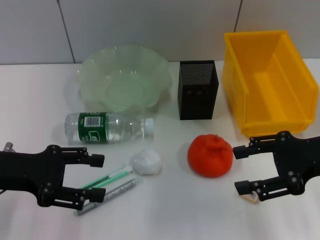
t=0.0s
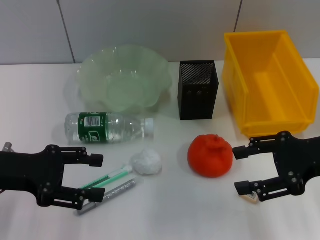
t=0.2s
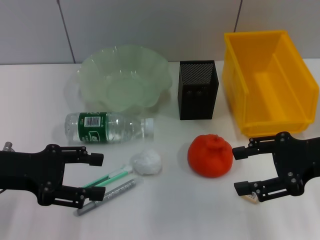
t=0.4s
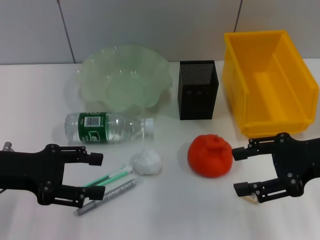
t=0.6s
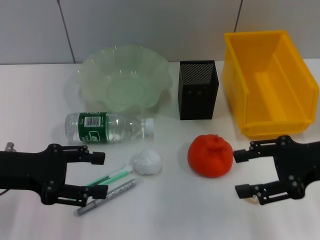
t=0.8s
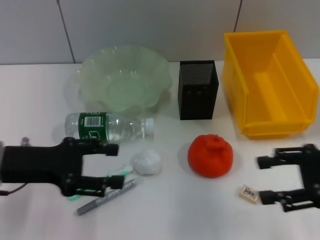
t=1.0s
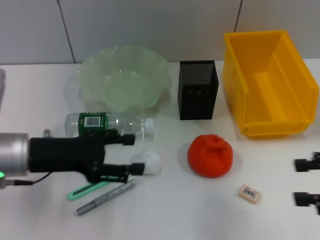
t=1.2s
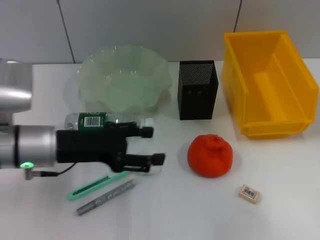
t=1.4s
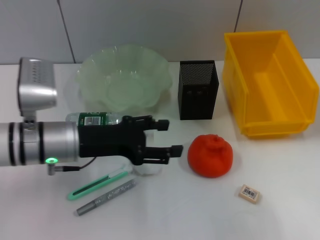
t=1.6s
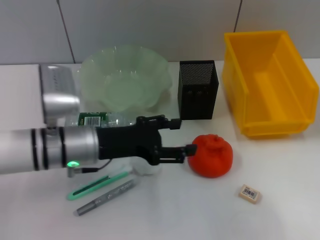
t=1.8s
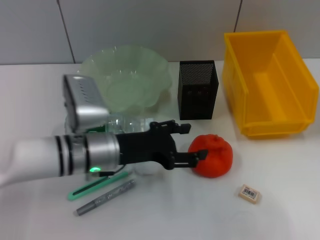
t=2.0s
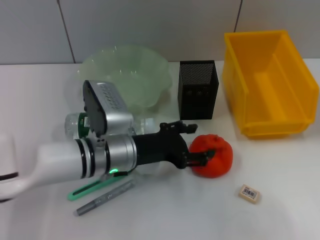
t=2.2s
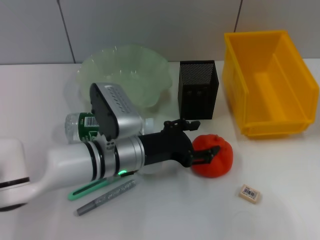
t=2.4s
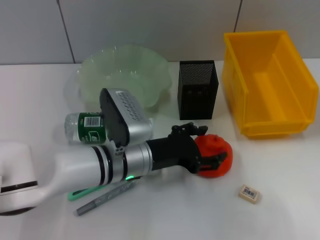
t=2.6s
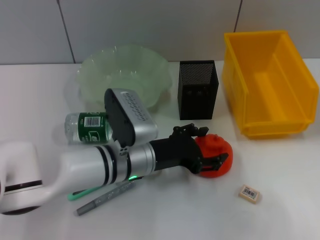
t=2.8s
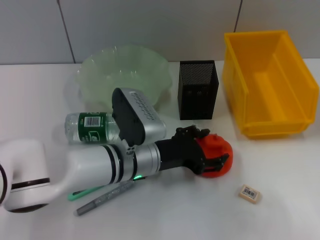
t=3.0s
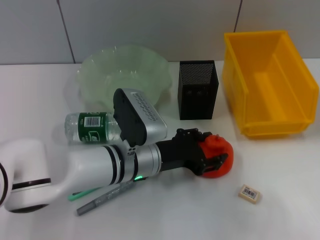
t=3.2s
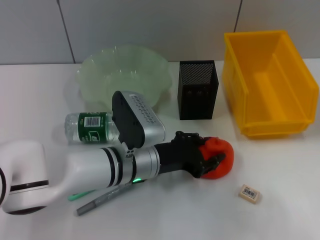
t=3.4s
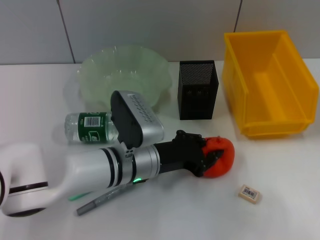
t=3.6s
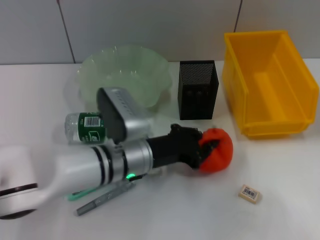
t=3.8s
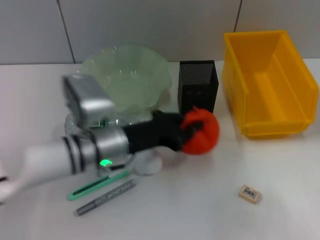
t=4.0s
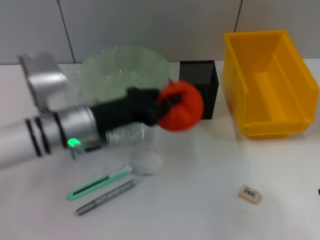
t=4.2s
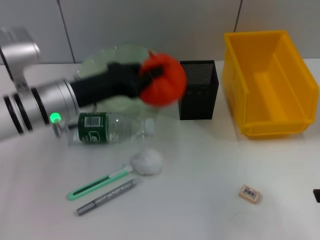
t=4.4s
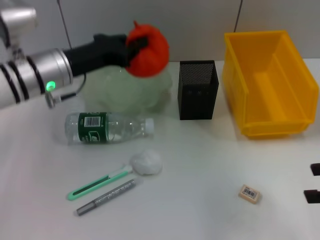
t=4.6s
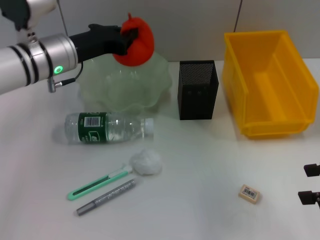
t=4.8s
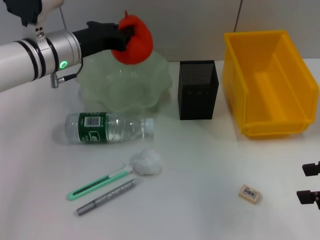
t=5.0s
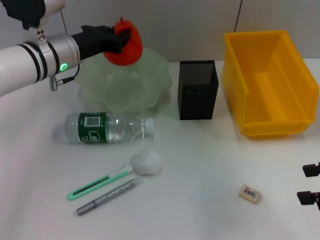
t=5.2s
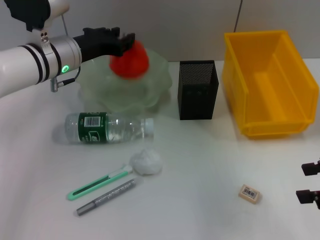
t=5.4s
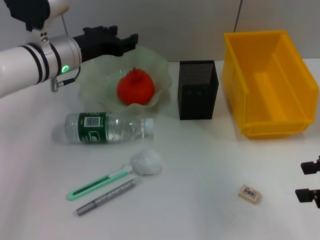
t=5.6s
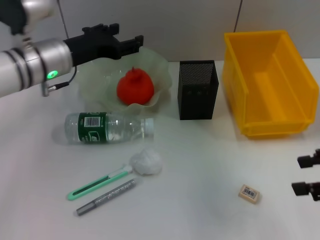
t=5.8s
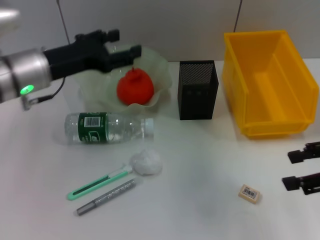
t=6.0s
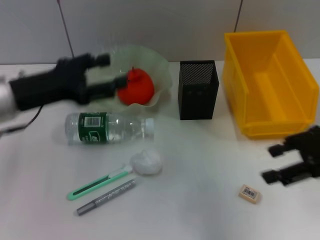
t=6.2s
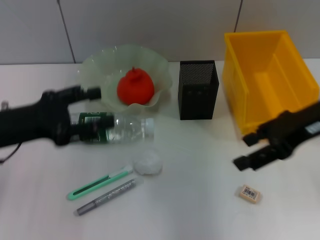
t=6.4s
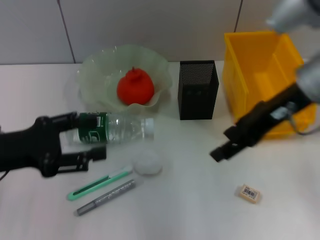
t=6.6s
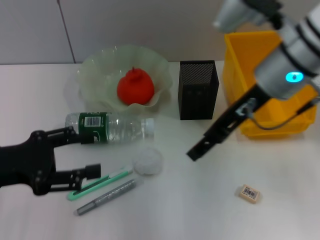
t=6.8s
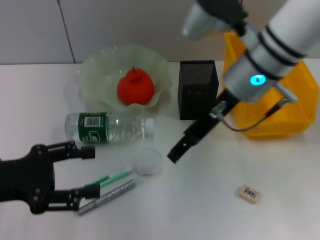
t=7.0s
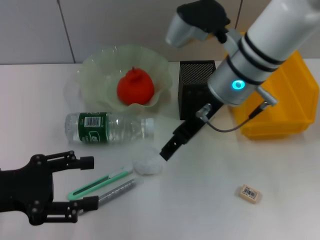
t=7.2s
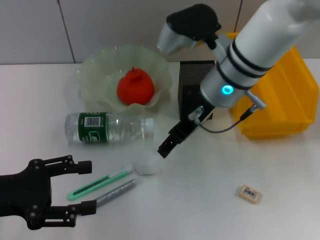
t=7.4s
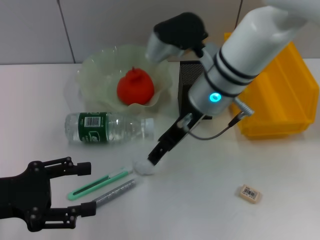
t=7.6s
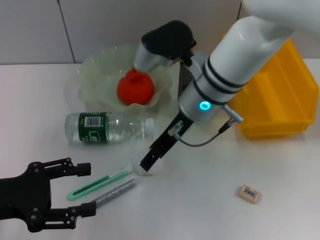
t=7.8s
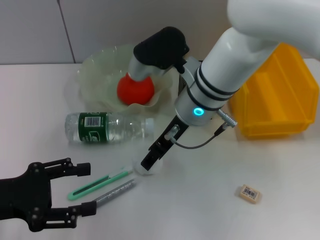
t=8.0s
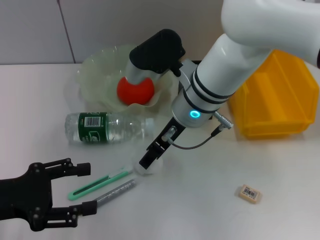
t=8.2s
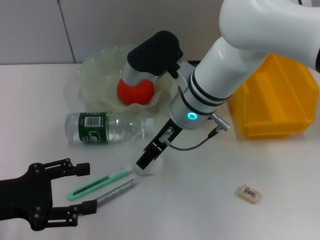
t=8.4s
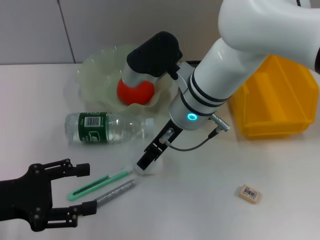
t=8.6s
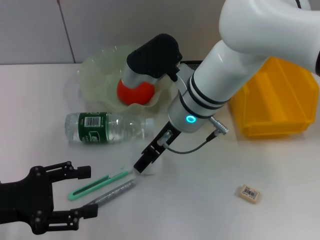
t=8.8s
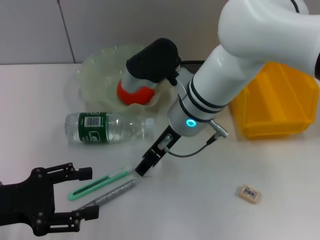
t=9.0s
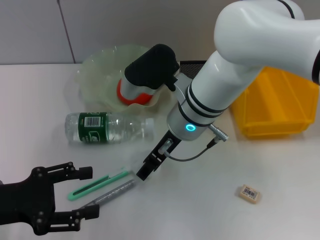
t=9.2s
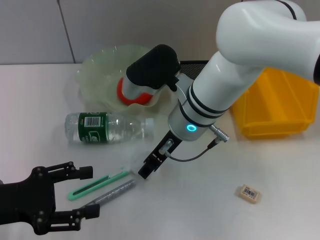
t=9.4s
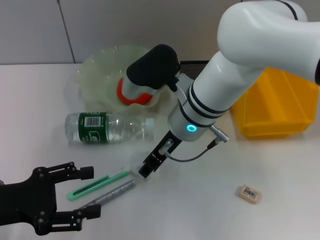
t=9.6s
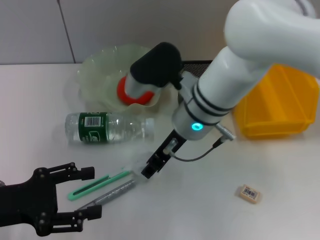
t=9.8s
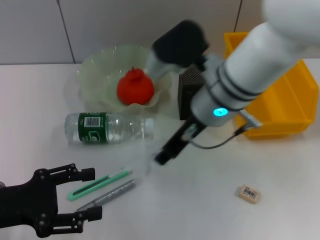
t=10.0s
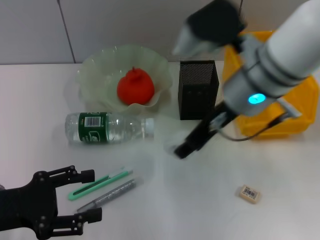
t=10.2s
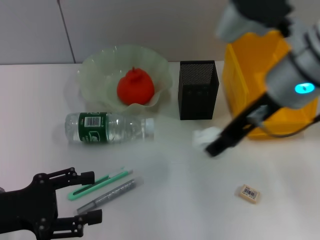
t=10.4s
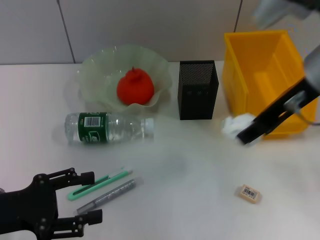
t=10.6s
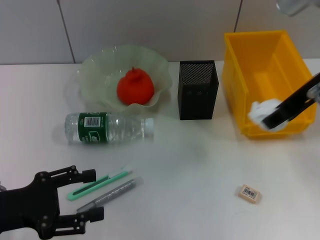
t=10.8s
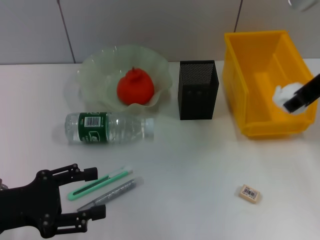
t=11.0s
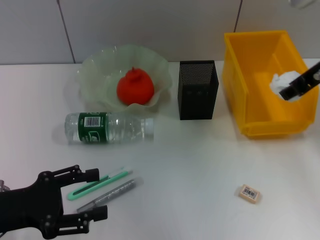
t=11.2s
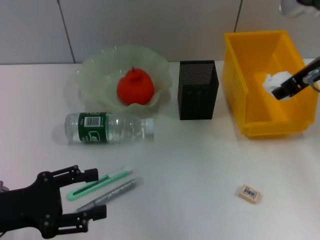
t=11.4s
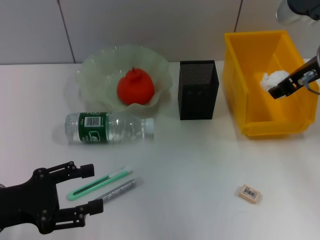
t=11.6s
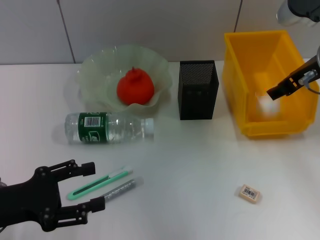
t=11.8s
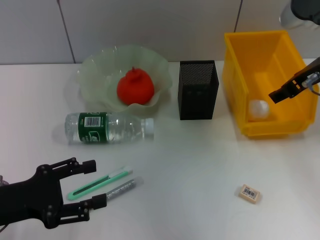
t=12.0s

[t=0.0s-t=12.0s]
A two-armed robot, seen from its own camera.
Step, t=0.0s to t=3.4s: Grab the orange with the left hand.
Step, t=3.6s to t=5.6s: Place the orange into the fruit bowl with the left hand.
Step, t=5.8s to t=9.4s: Grab the paper ball with the right hand.
t=0.0s to t=1.6s: The right gripper goes some 15 cm to the right and backward; the left gripper heads to the right, covering approximately 10 cm.
t=1.6s to t=3.0s: The left gripper heads to the right and downward, covering some 10 cm.
t=3.0s to t=4.4s: The left gripper shifts roughly 15 cm to the left and upward, and closes its fingers.
t=4.4s to t=6.0s: The right gripper shifts by roughly 5 cm. Meanwhile the left gripper reaches approximately 10 cm forward, then returns, and opens.
t=6.0s to t=7.6s: The left gripper moves backward and to the left, some 15 cm, while the right gripper travels to the left and forward by about 30 cm.
t=7.6s to t=9.0s: The grippers make only small movements.
t=9.0s to t=10.4s: The right gripper is displaced to the right and upward by some 15 cm.
t=10.4s to t=12.0s: The right gripper moves to the right and forward, some 10 cm, and opens its fingers.

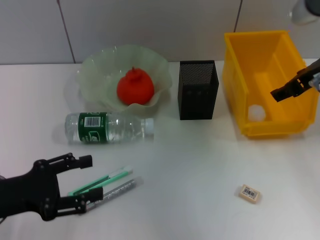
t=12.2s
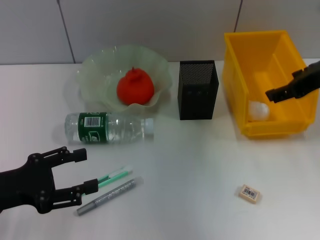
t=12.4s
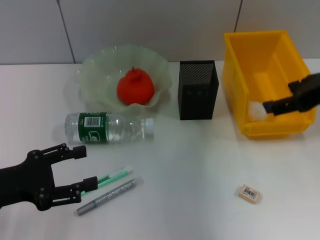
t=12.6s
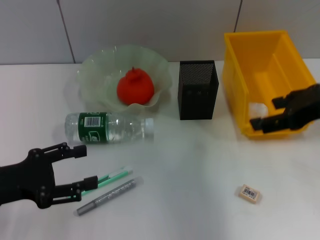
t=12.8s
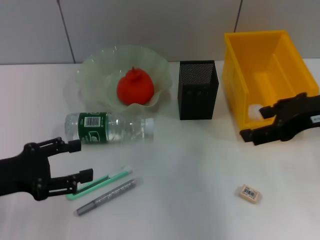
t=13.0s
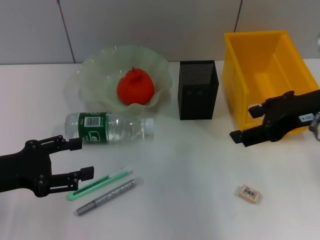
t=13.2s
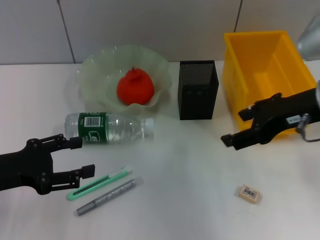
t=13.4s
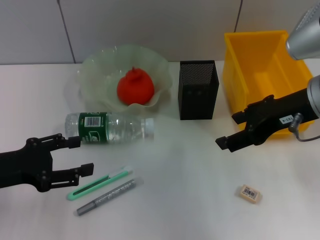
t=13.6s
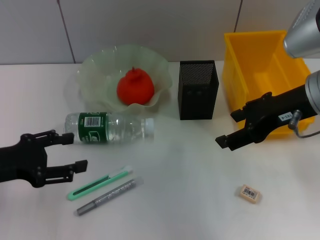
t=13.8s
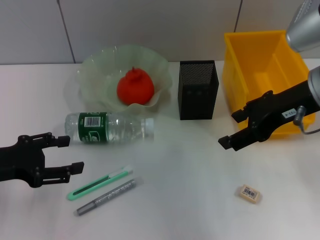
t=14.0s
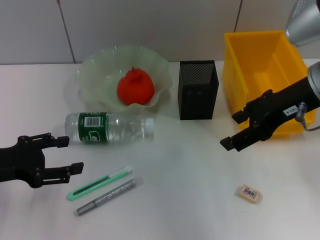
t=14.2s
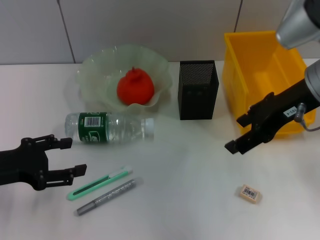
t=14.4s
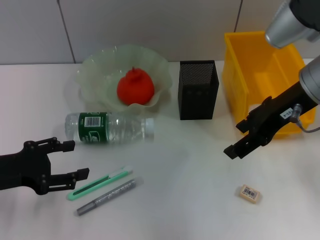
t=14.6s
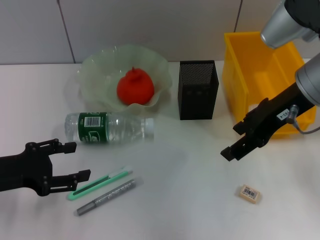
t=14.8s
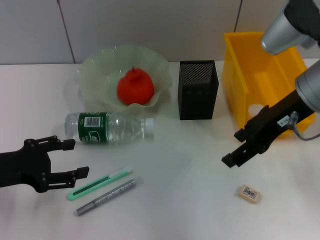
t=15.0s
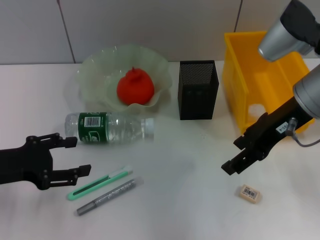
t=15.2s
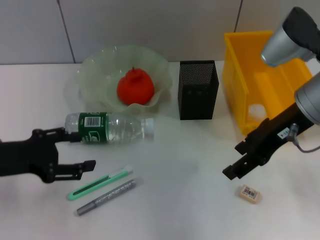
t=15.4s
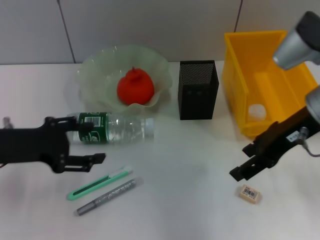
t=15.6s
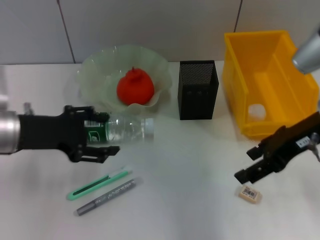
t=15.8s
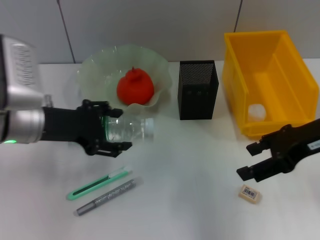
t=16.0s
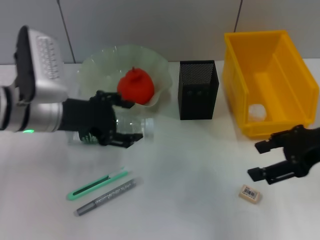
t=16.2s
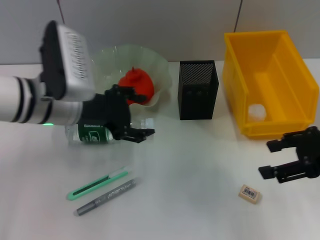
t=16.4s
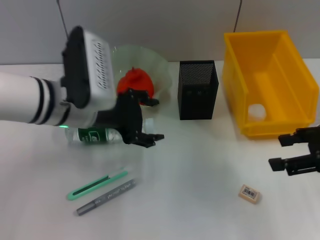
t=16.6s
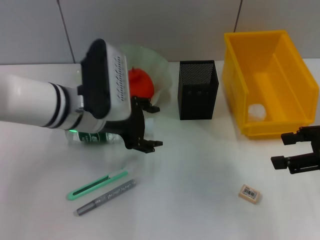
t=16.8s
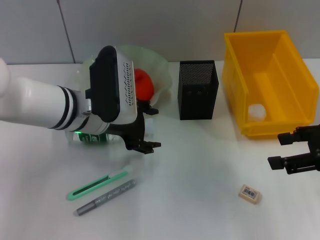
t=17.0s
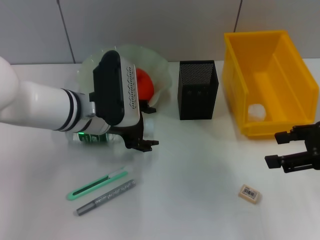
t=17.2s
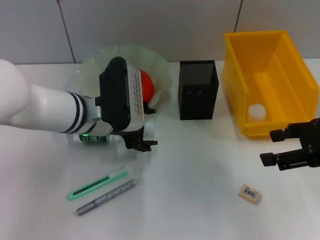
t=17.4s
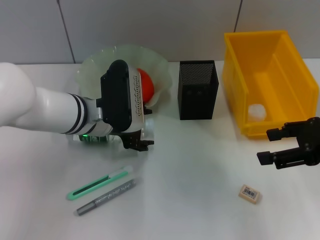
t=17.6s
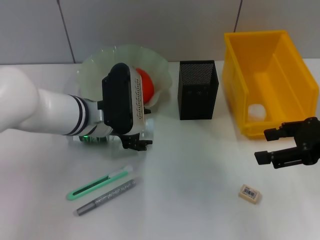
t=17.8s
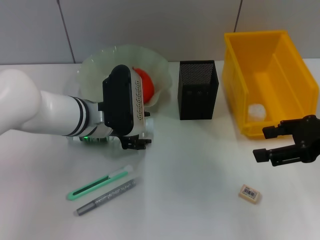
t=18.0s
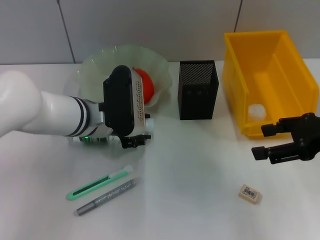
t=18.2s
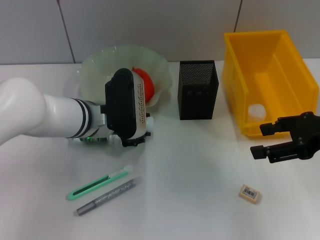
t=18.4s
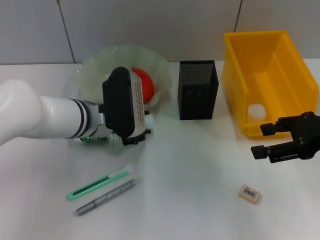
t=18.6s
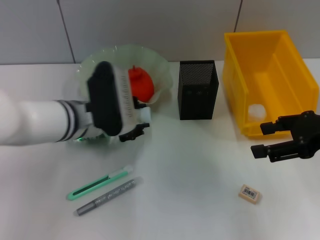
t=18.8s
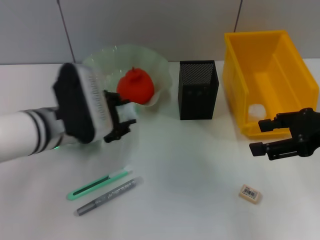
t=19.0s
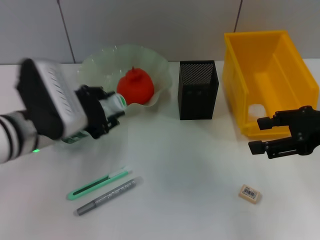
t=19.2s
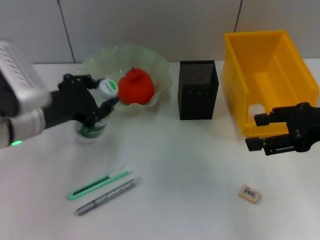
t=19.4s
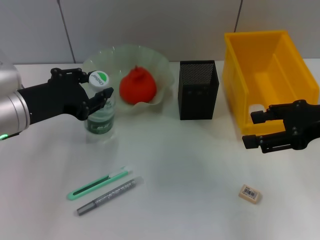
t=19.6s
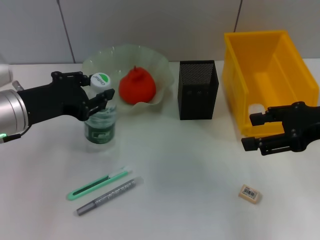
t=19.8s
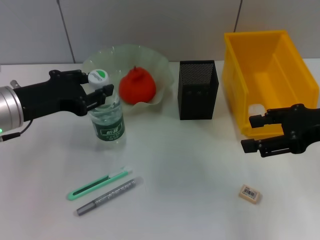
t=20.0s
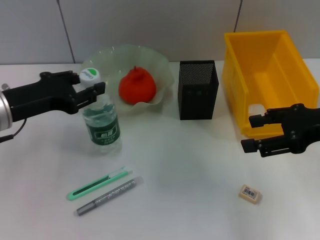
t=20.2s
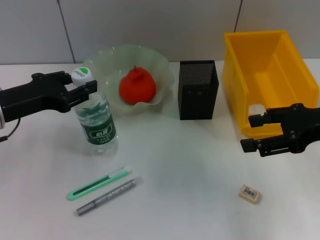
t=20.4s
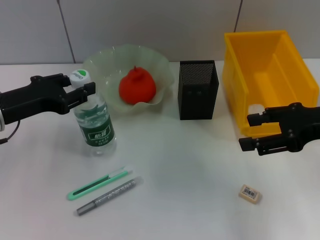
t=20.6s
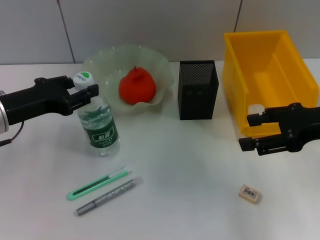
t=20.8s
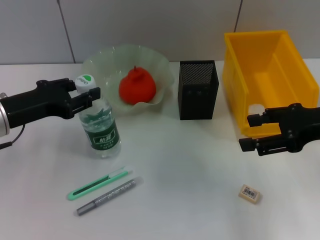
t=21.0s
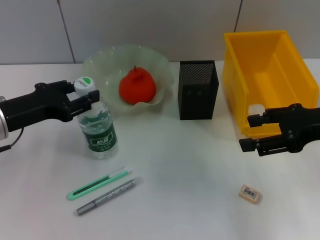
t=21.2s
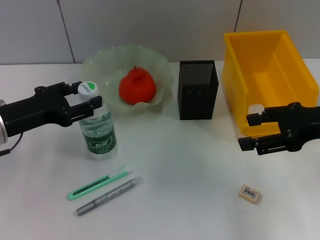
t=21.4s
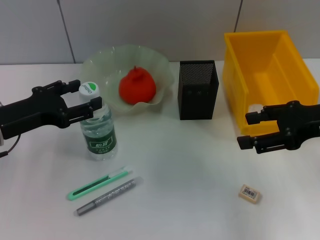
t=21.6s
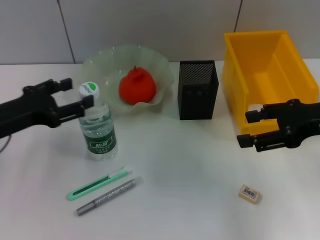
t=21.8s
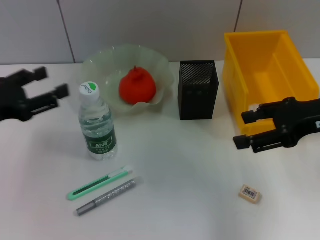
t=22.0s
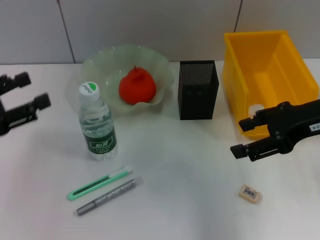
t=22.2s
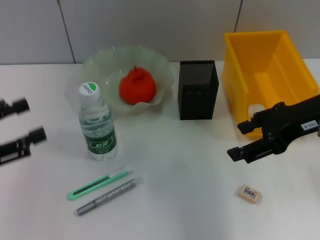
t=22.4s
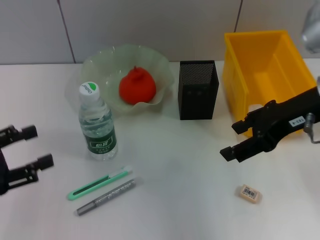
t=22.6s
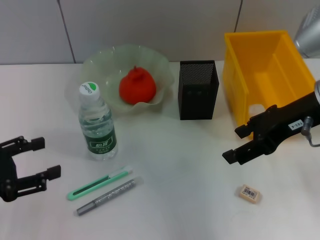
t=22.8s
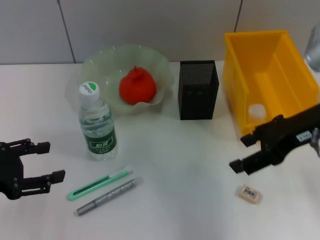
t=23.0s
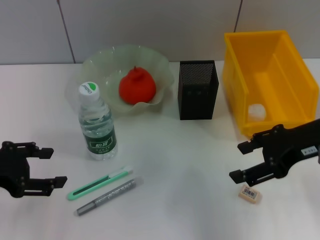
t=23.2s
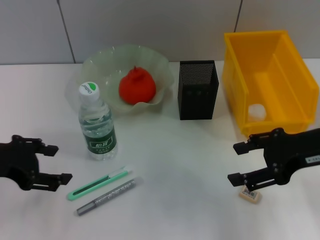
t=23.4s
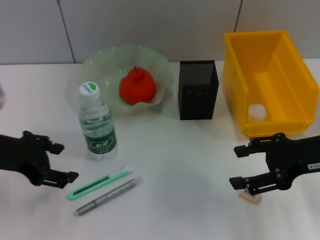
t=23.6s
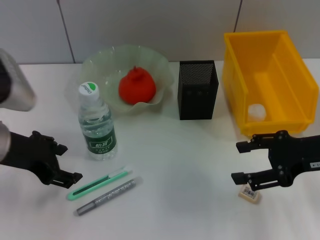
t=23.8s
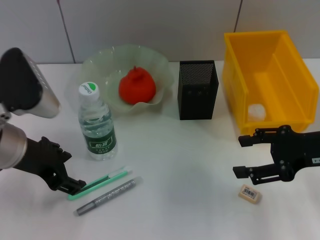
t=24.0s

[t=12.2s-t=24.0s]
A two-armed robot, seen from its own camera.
Step, t=12.6s to t=18.2s: Grab the water bottle with the left hand.
Step, t=18.6s to t=21.4s: Place the water bottle on the table with the left hand.
t=12.2s to t=13.6s: The right gripper changes place by about 5 cm.
t=13.6s to t=15.2s: The grippers make only small movements.
t=15.2s to t=16.6s: The right gripper is displaced to the right and backward by roughly 15 cm. Meanwhile the left gripper travels to the right and forward by approximately 15 cm.
t=16.6s to t=18.2s: The left gripper is displaced downward by about 5 cm.
t=18.2s to t=19.6s: The left gripper is displaced to the left, backward and upward by some 15 cm.
t=19.6s to t=21.0s: The left gripper moves some 5 cm.
t=21.0s to t=22.6s: The right gripper shifts approximately 5 cm to the left; the left gripper heads backward and to the left, covering approximately 15 cm.
t=22.6s to t=24.0s: The left gripper shifts approximately 15 cm to the right and forward. The right gripper goes approximately 10 cm downward and to the right.
